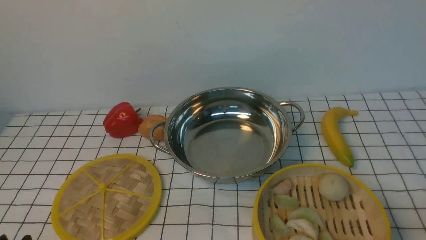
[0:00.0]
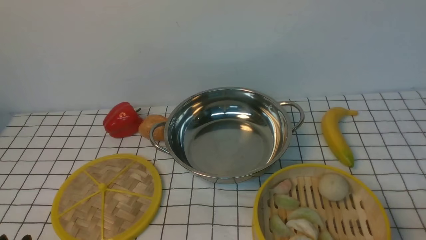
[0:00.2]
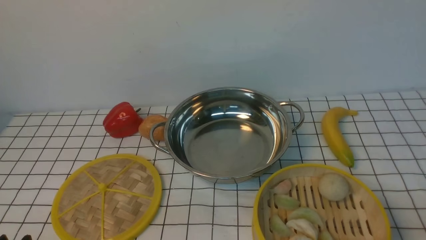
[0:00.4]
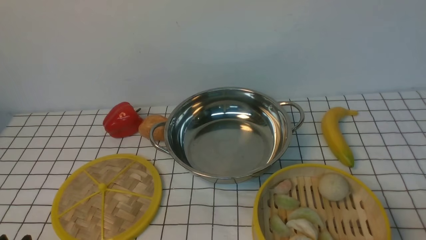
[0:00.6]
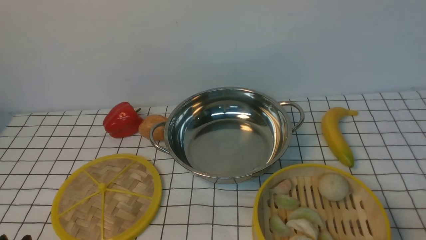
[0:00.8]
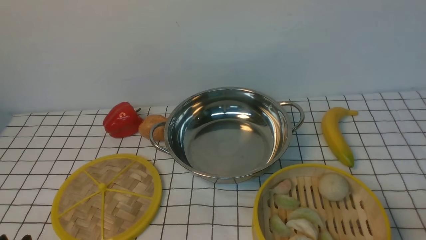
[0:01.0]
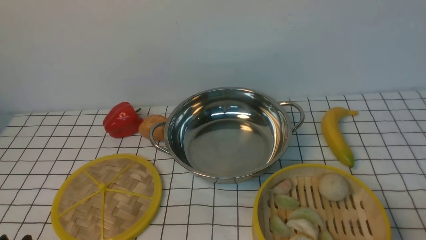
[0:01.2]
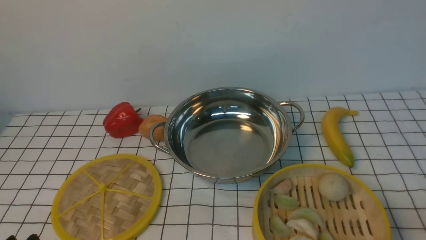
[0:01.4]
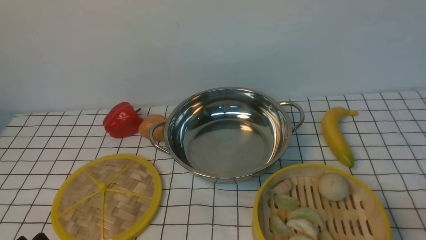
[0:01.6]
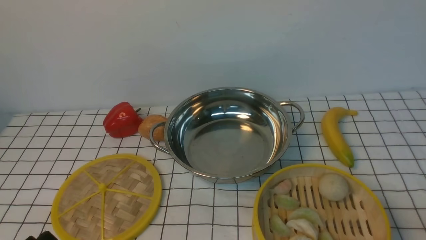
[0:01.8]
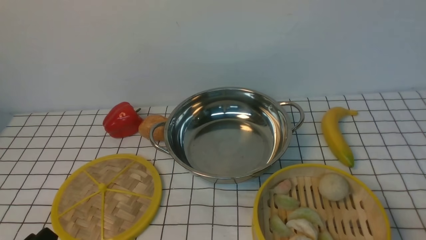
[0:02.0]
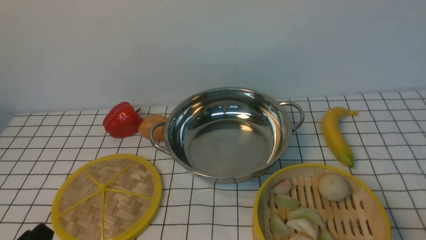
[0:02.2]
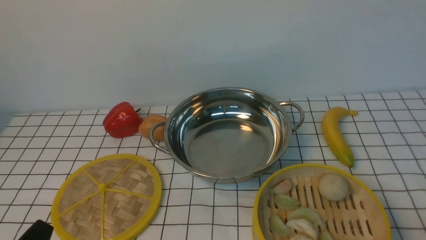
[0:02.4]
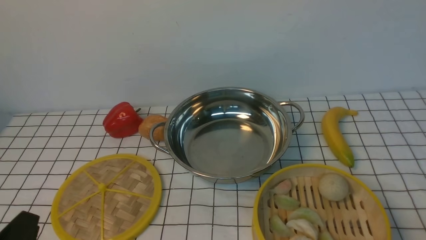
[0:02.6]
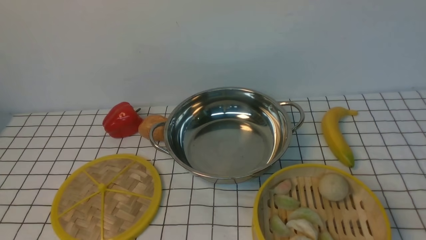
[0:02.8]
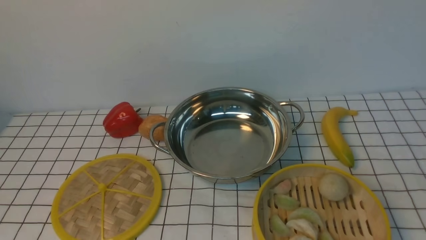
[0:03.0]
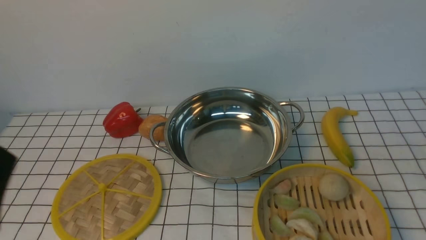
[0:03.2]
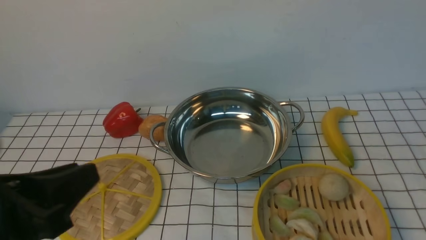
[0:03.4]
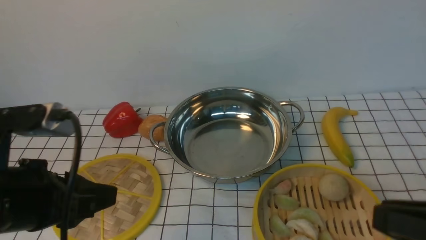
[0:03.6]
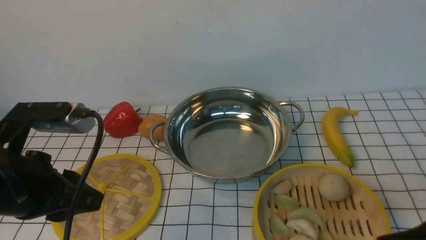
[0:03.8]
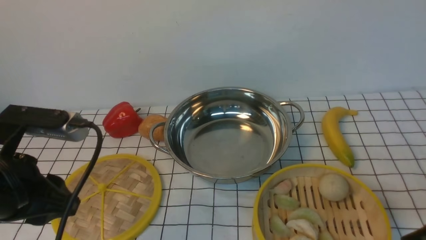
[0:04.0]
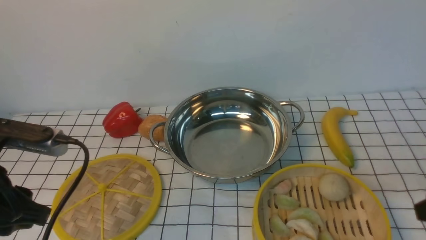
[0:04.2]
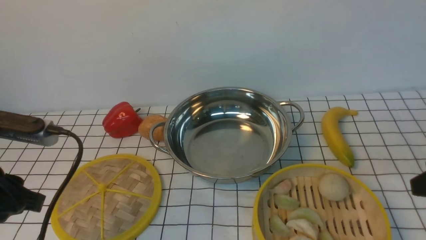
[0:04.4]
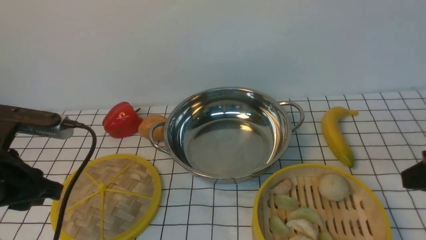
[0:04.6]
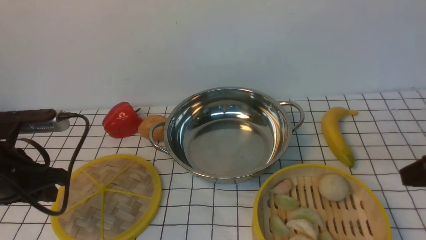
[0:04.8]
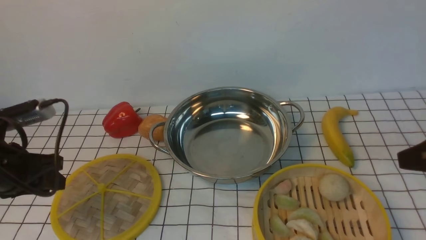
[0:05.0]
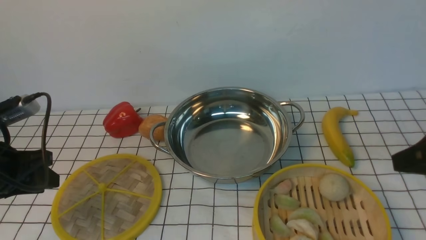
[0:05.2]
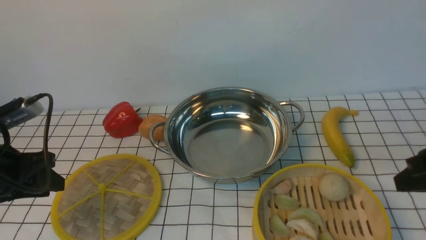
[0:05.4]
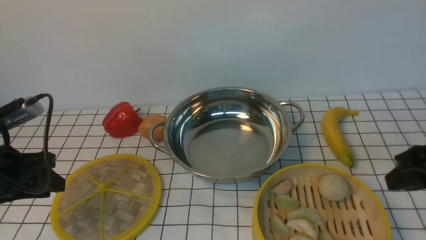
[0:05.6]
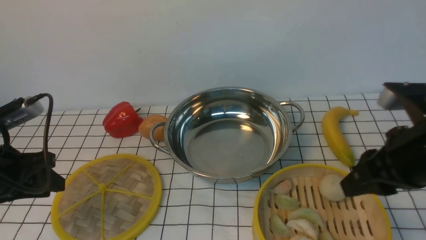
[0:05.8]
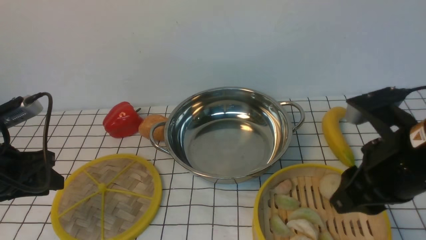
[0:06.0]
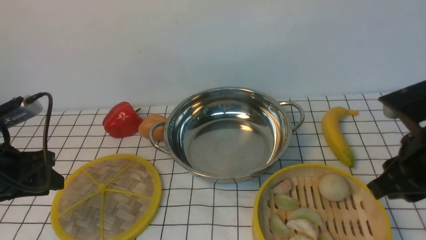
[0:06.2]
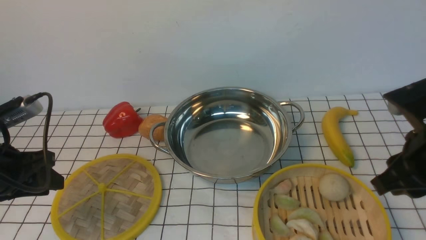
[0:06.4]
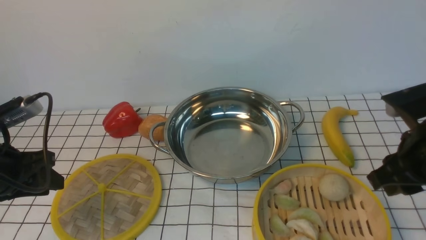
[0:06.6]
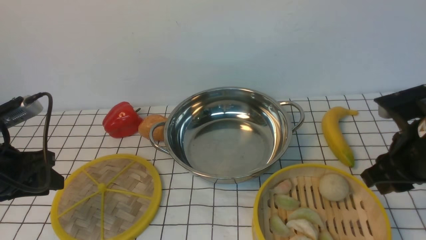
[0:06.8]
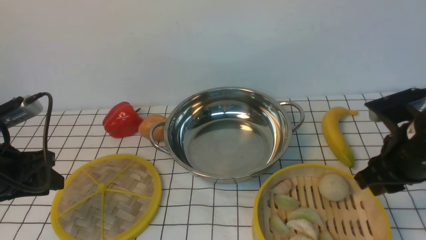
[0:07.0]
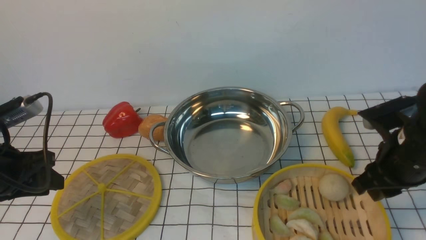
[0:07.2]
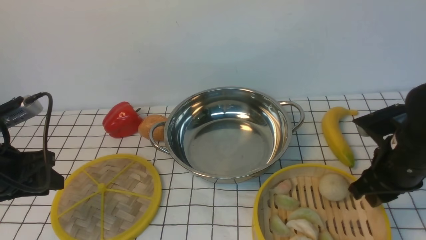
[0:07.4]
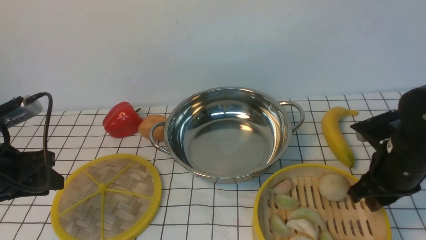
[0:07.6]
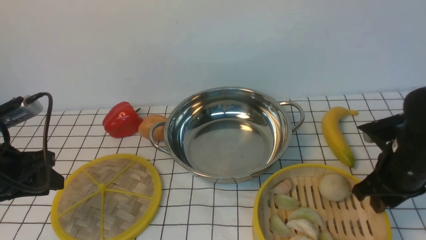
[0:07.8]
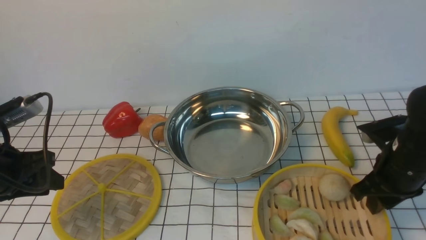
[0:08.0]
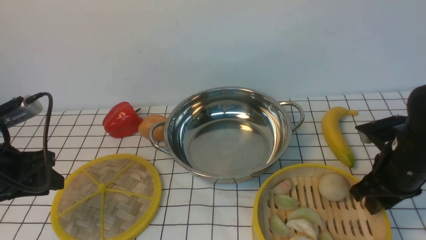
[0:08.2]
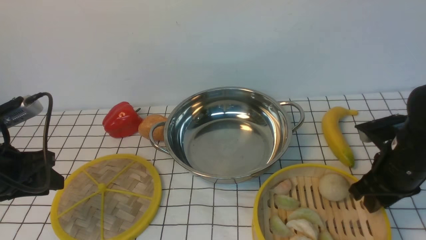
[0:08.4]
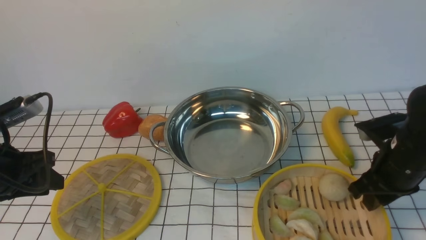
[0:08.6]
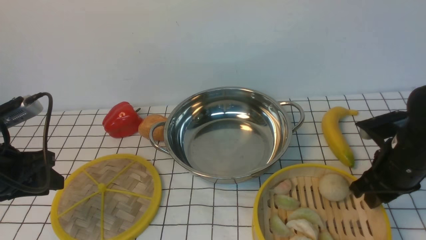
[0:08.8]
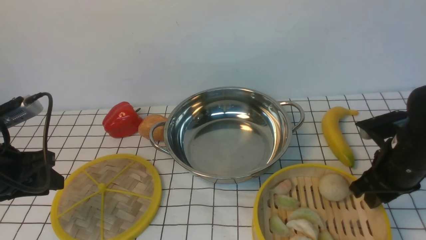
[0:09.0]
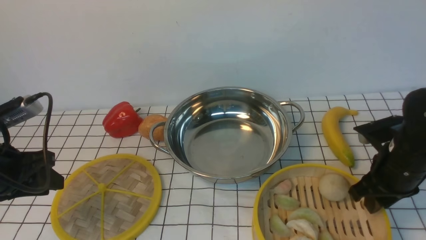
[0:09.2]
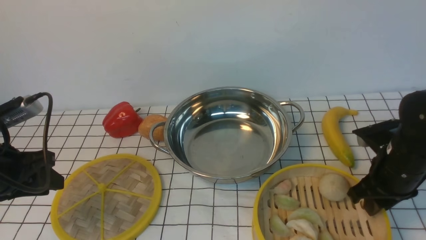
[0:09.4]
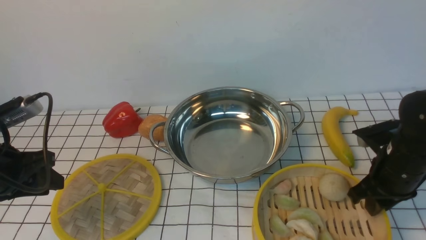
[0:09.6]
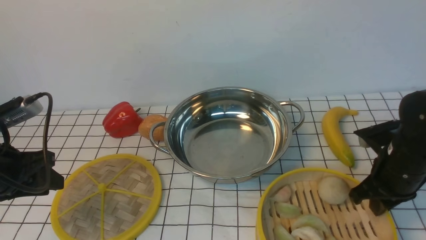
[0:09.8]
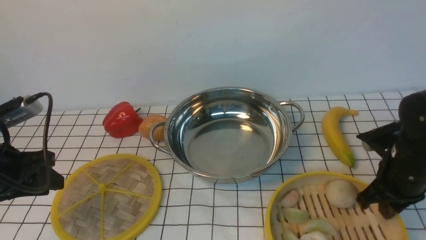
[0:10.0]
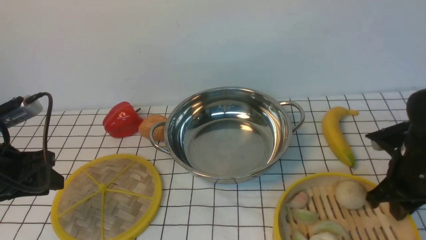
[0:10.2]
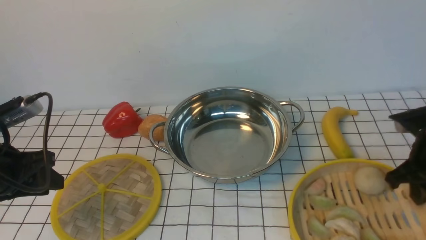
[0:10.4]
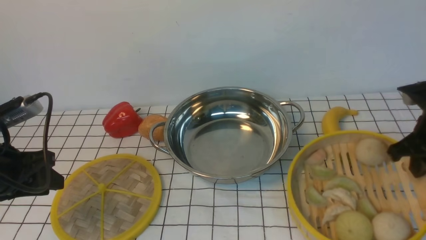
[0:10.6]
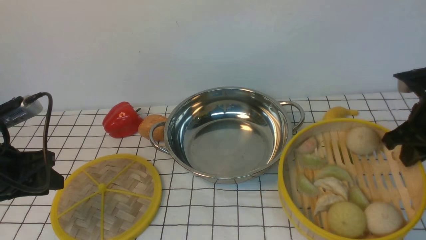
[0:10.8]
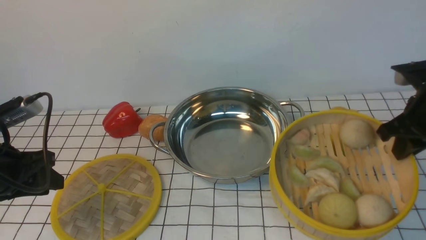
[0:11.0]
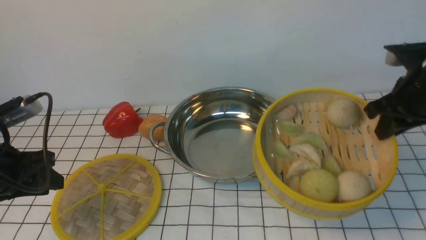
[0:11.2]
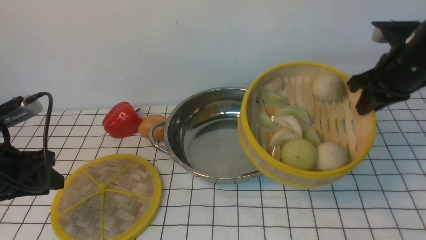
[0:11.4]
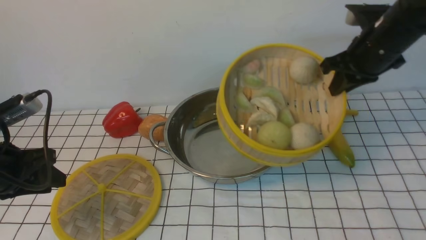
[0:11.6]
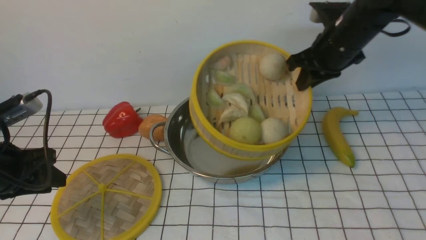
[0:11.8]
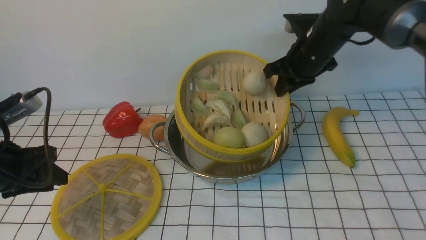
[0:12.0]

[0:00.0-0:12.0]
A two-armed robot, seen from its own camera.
Task of the whole recording: place the steamer in the pot on the white tablecloth, and put the lid on the steamer.
Step, 0:00.0 to 0:10.4: use the right arm to lift the steamer closest to it.
0:03.0 to 0:04.4: The left gripper shifts some 15 cm forward.
0:04.4 to 0:06.0: The right gripper goes some 10 cm to the left. Meanwhile the left gripper is displaced forward, to the left and downward by approximately 10 cm.
0:06.0 to 0:07.6: The right gripper shifts about 10 cm downward and forward.
0:07.6 to 0:09.0: The grippers make only small movements.
0:09.0 to 0:10.4: The right gripper closes up.
0:10.4 to 0:12.0: The right gripper heads forward and to the left, covering approximately 20 cm.

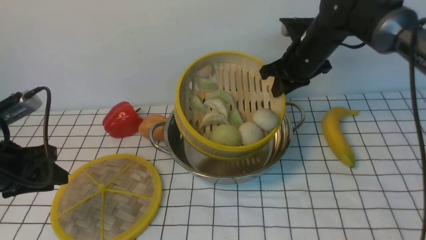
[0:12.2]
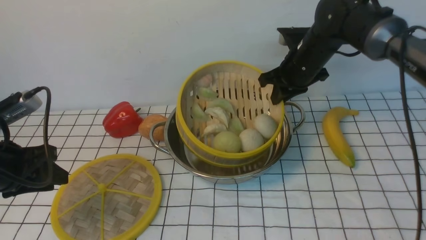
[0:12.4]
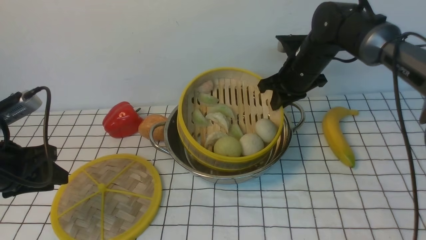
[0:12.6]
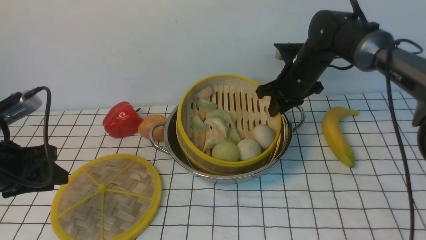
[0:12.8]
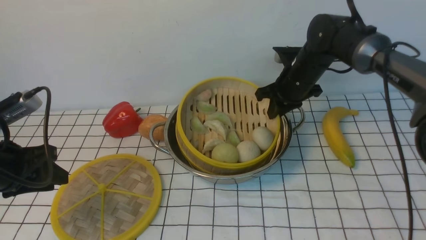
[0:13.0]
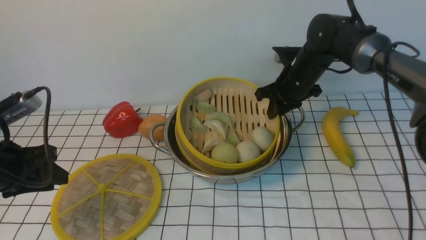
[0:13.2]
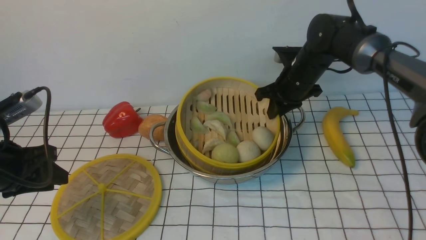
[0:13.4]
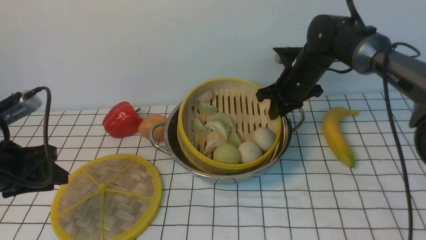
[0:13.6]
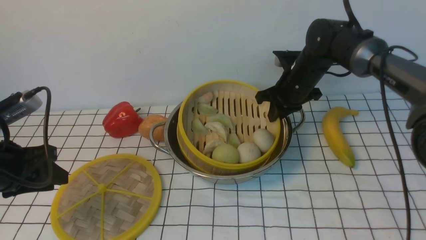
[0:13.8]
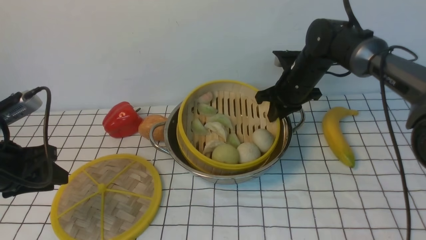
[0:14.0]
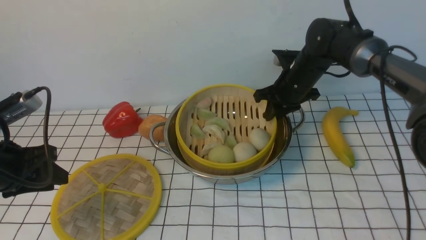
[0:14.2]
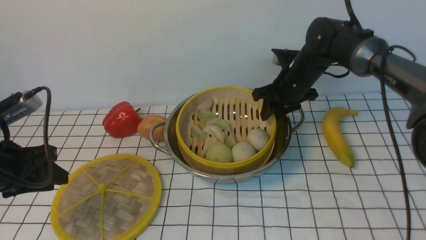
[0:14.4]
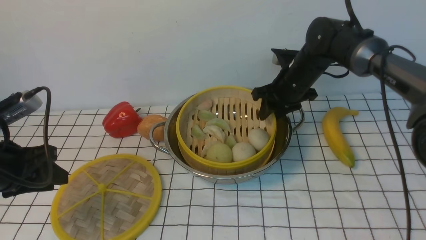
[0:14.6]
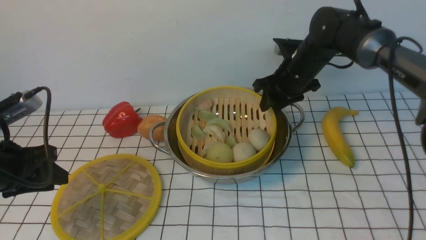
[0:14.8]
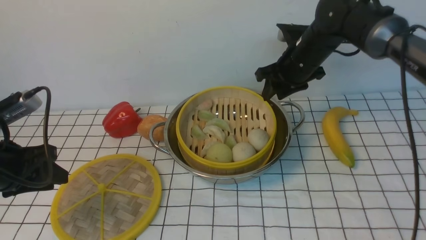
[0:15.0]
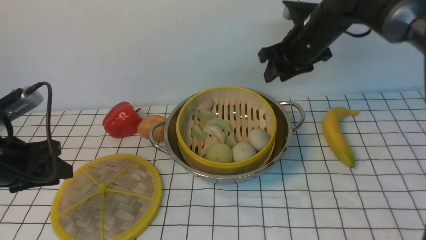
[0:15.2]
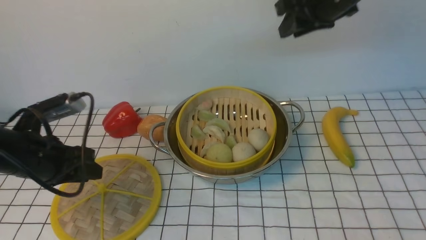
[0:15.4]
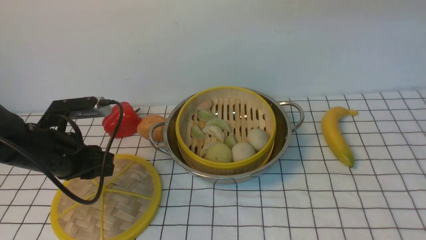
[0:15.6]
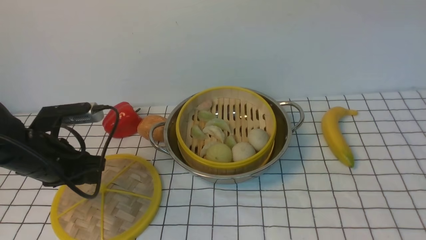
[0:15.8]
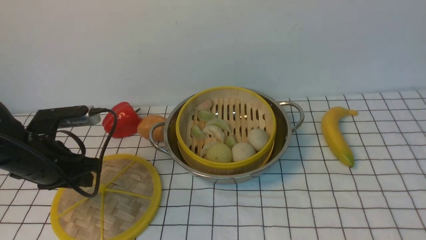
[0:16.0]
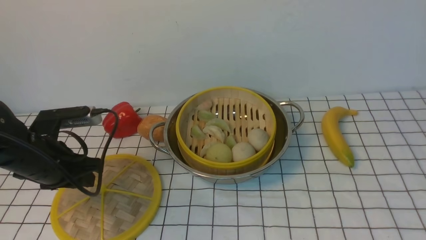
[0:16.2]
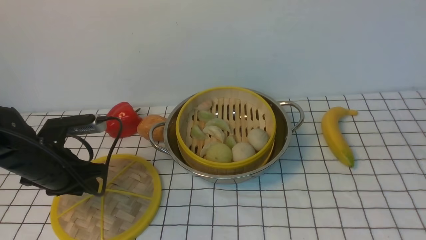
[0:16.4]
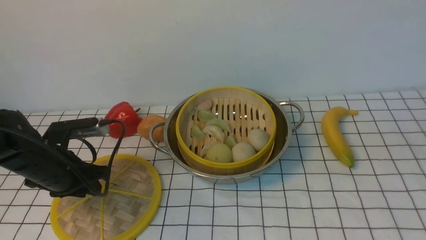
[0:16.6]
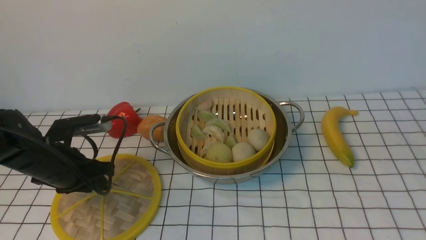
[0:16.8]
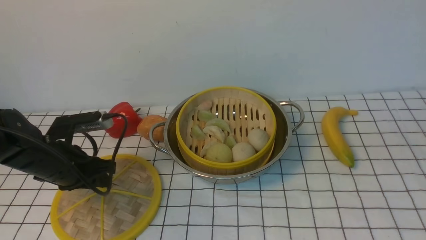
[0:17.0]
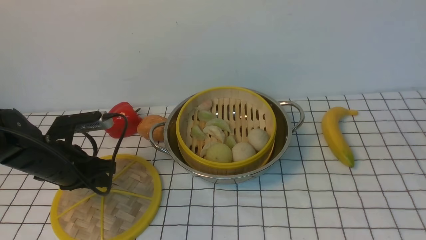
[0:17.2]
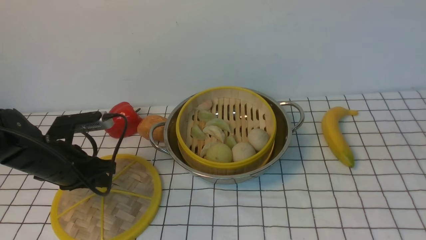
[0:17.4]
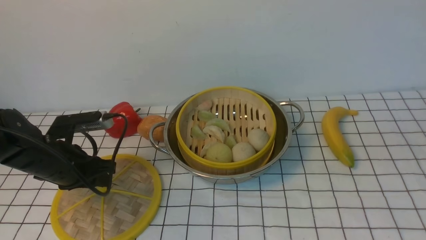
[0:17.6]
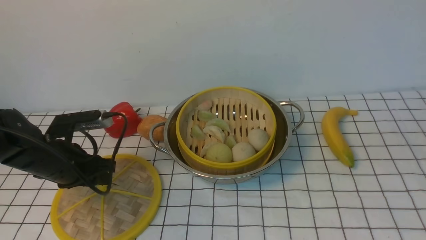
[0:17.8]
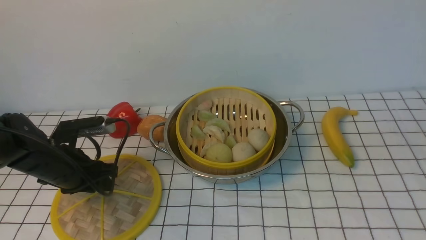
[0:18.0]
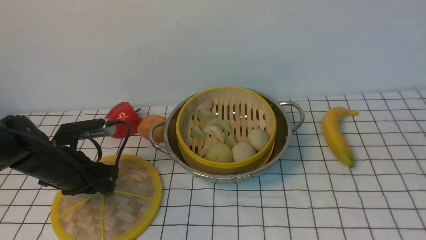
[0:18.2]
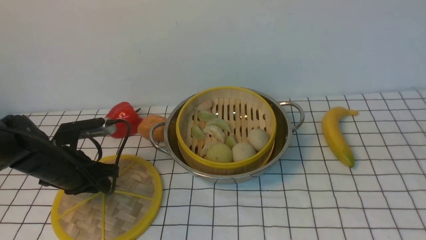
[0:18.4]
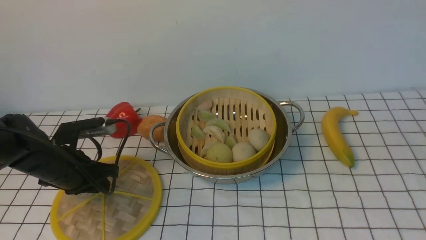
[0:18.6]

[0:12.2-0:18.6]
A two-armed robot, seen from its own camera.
Task of the whole recording: place the steamer in the pot on the white tablecloth, and put the lid on the steamer.
Step, 0:12.2 to 0:15.0: use the right arm to put the steamer into the iron steamer pot in the middle.
0:12.2 to 0:13.8: The right gripper goes some 5 cm downward.
0:13.8 to 0:15.4: The left gripper shifts by about 5 cm; the right gripper travels upward by about 20 cm.
0:15.4 to 0:17.0: The left gripper shifts by some 5 cm. The right gripper travels backward by approximately 35 cm, and closes.
0:17.0 to 0:18.6: The grippers make only small movements.
